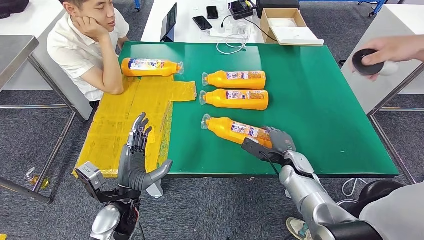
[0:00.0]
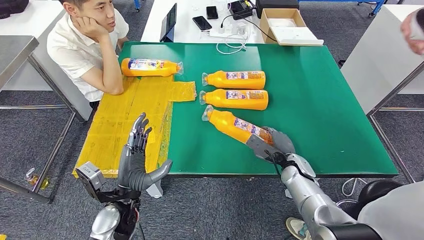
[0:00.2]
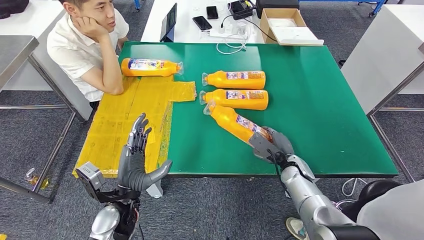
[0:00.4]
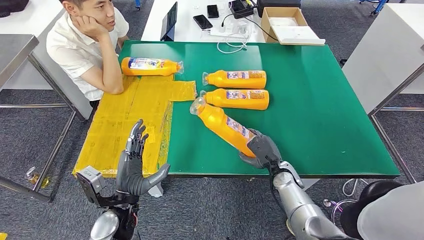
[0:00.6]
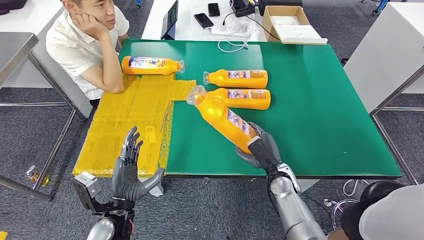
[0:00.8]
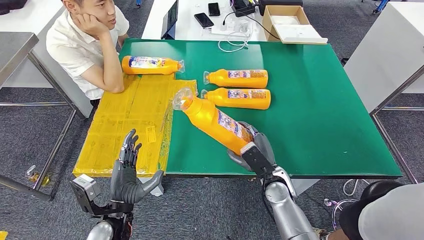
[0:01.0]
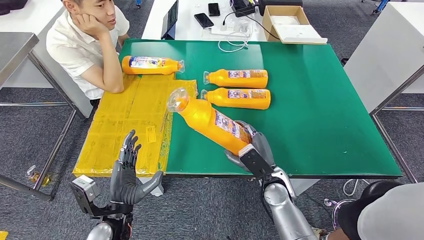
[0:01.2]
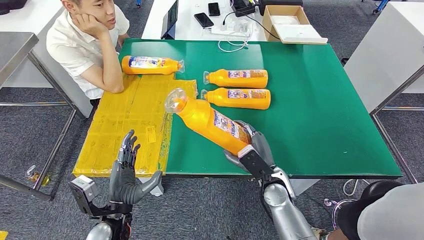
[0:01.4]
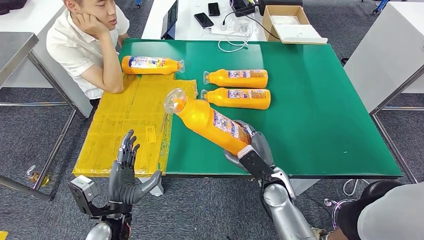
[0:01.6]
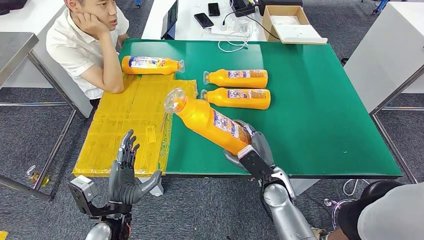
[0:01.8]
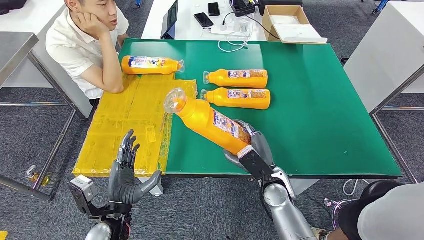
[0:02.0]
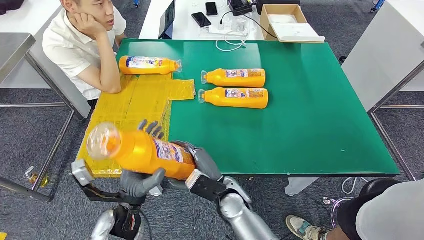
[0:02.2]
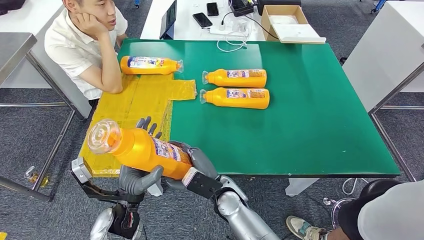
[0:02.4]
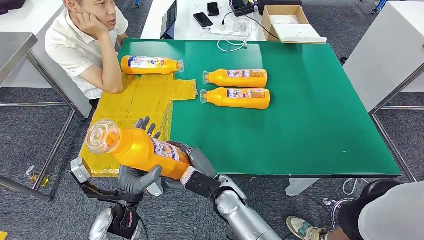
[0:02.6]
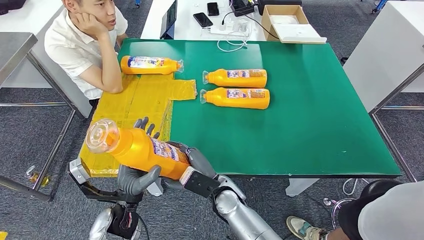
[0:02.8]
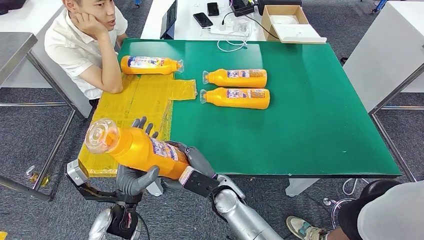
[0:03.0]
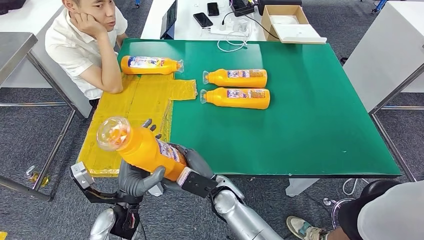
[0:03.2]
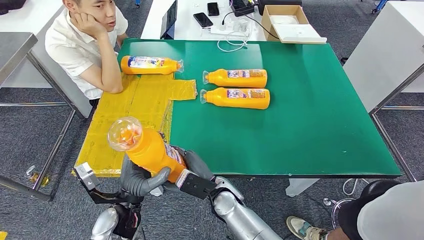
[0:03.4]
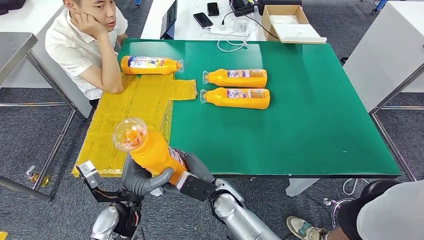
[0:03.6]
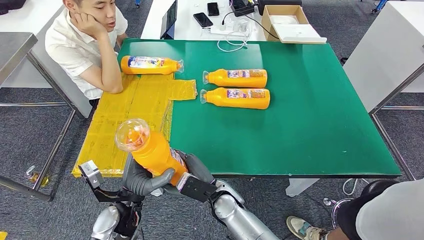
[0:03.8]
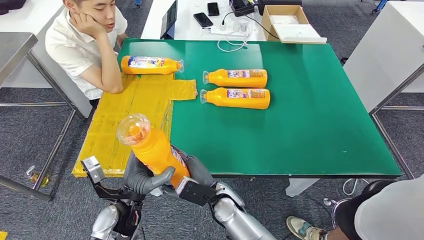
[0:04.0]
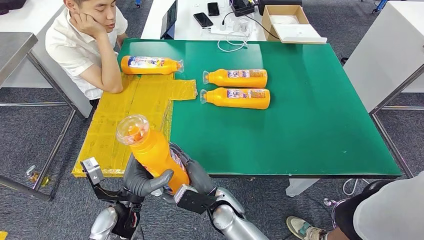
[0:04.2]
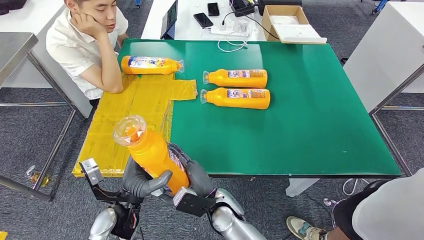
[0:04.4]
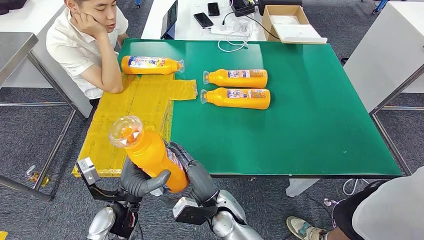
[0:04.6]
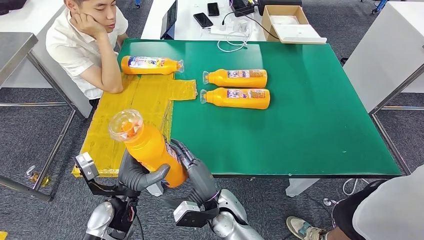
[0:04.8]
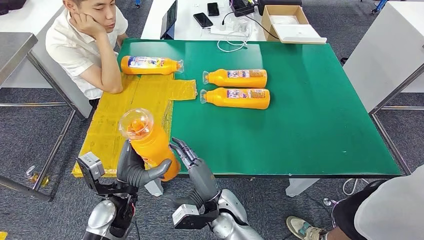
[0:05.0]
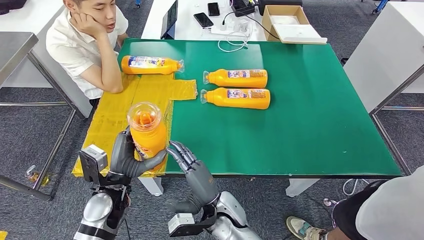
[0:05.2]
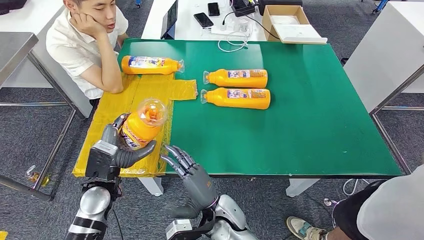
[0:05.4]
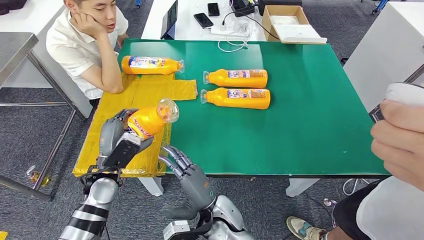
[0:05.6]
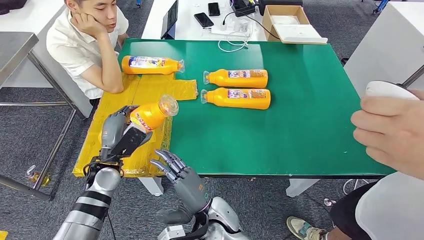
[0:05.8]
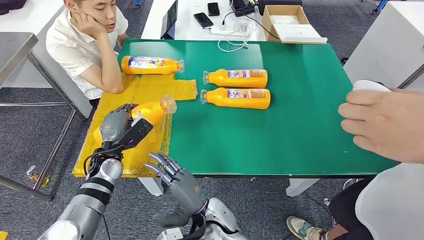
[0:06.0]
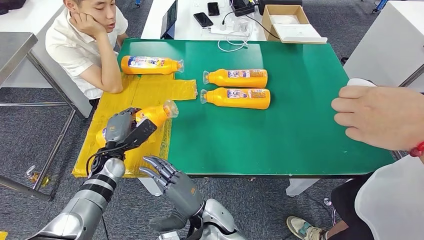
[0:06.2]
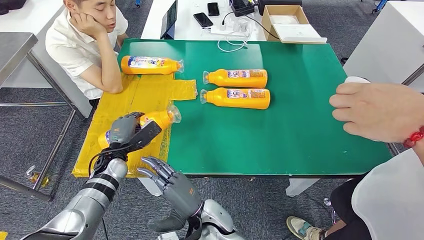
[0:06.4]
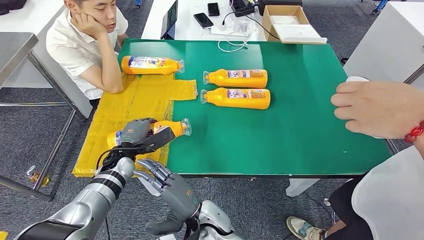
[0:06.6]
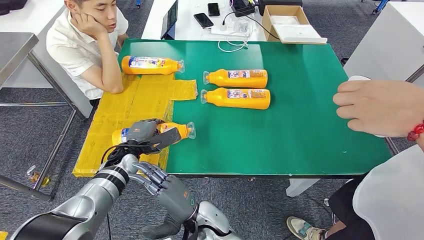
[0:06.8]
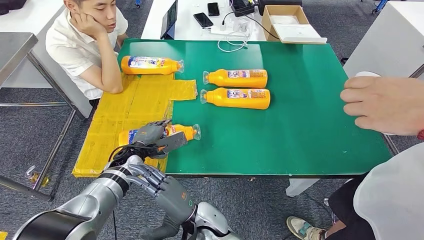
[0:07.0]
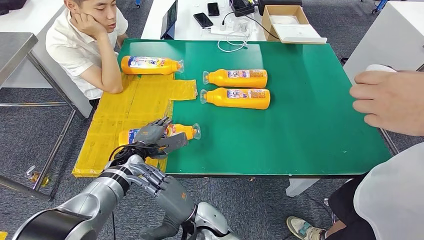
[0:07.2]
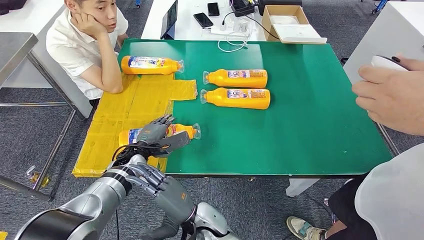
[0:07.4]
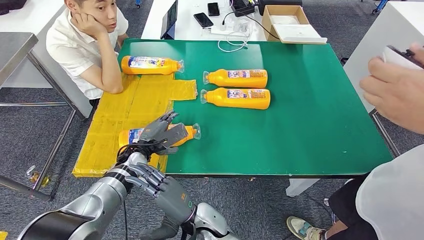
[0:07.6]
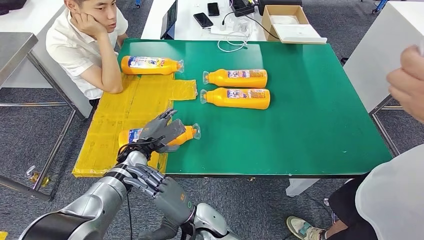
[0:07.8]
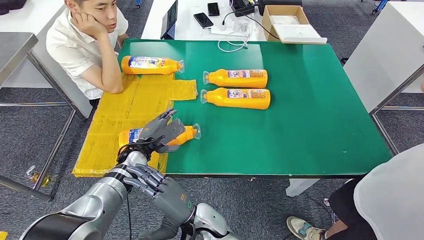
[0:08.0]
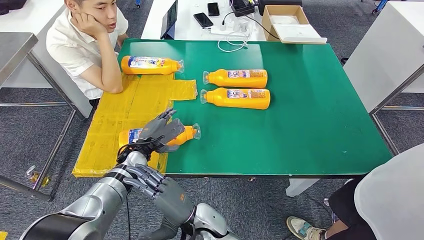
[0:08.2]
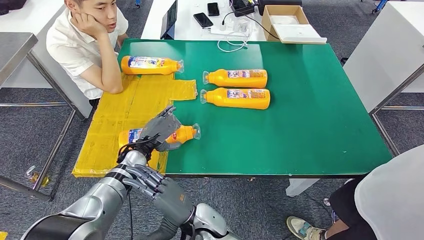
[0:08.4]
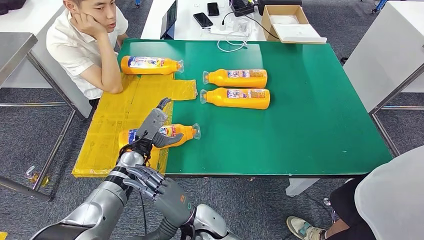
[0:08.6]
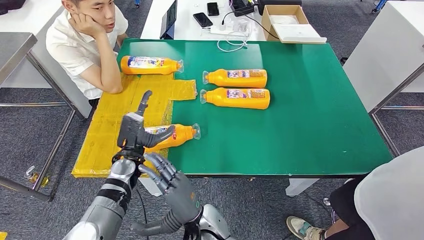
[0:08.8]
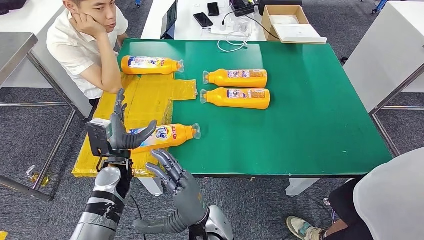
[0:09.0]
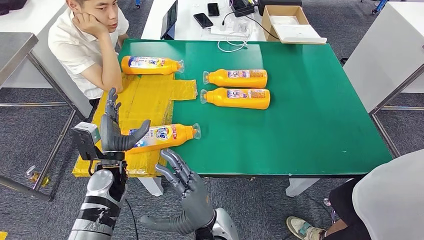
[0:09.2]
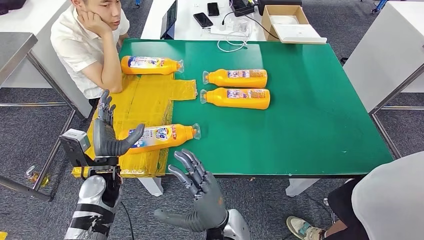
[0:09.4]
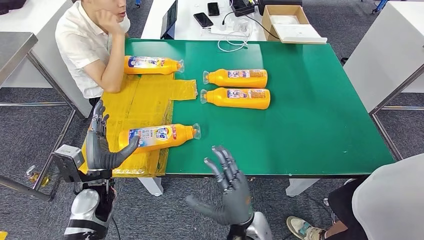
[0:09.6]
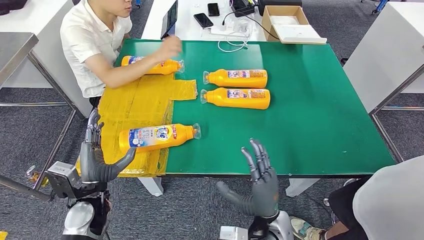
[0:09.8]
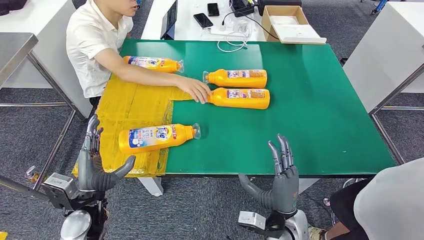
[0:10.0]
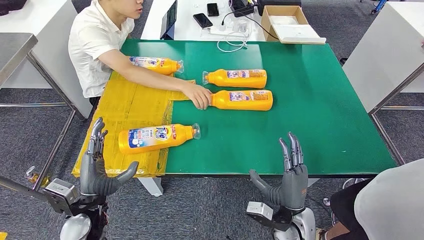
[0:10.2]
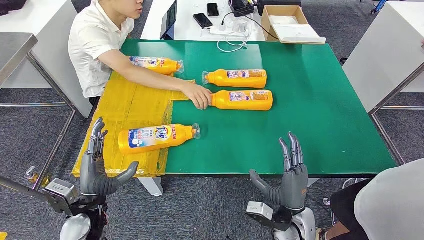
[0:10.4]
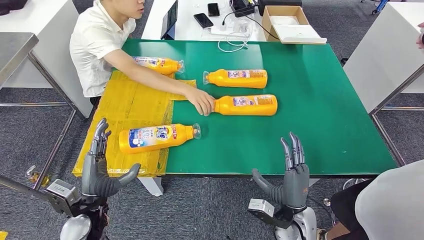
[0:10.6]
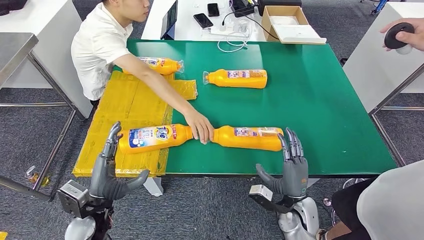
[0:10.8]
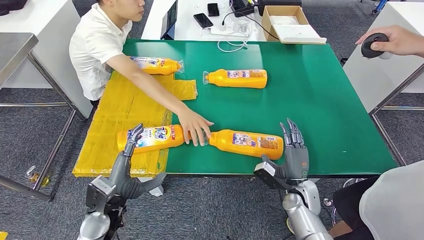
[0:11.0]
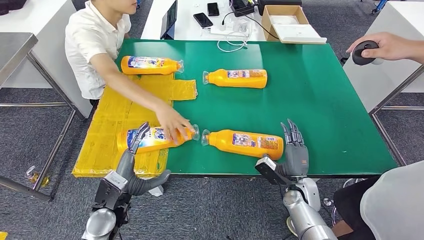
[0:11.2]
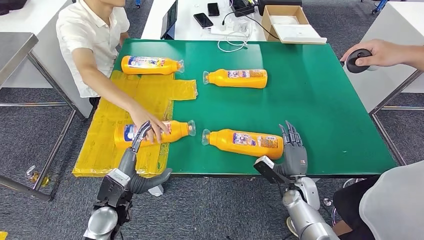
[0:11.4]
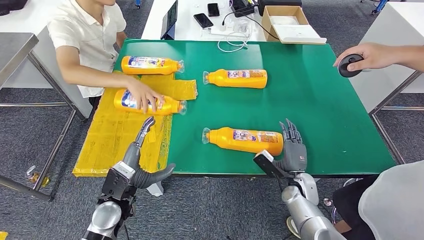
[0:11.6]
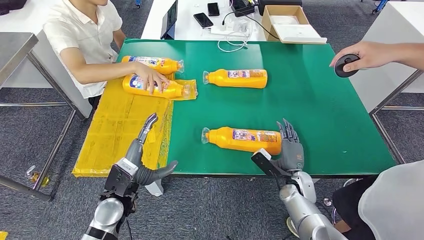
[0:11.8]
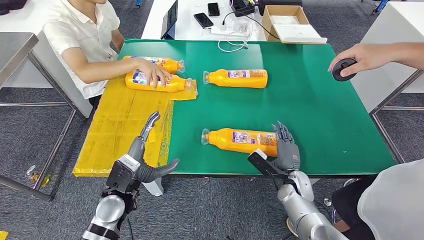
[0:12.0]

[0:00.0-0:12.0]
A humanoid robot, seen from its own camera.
Step, 0:01.4 to 0:08.8: Flip the bottle to face forward.
0:01.6 to 0:03.0: The right hand is displaced to the left by approximately 15 cm.
0:03.0 to 0:04.4: The hands stay close to where they were, moving slightly.
0:04.4 to 0:06.0: The left hand goes about 15 cm forward and to the left.
0:06.0 to 0:07.6: The left hand shifts by roughly 5 cm.
0:07.6 to 0:09.0: The left hand goes approximately 5 cm backward.

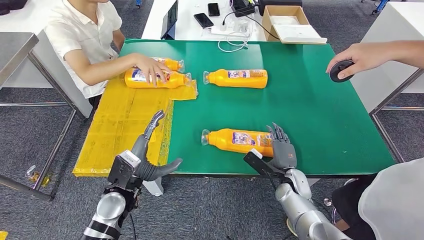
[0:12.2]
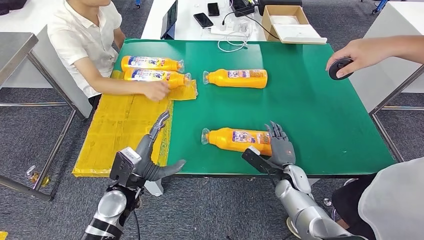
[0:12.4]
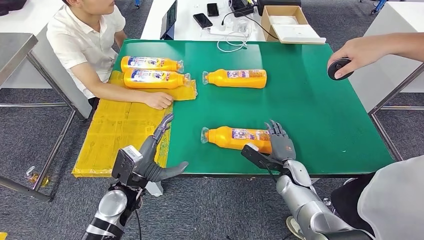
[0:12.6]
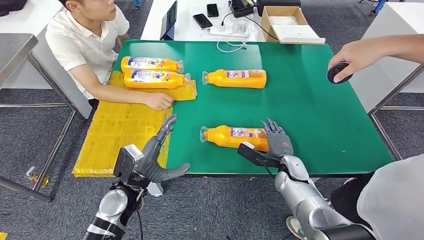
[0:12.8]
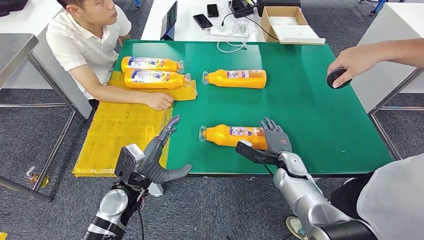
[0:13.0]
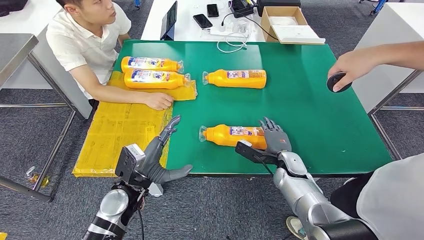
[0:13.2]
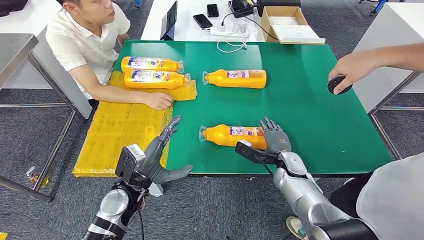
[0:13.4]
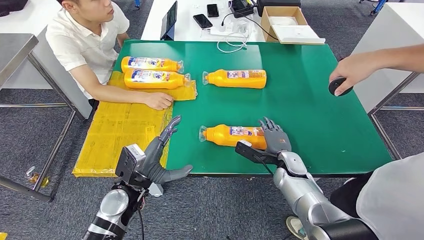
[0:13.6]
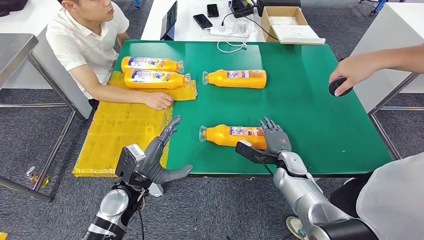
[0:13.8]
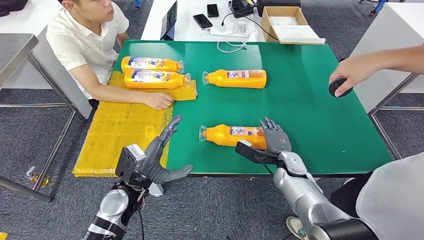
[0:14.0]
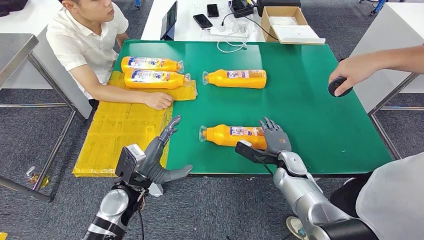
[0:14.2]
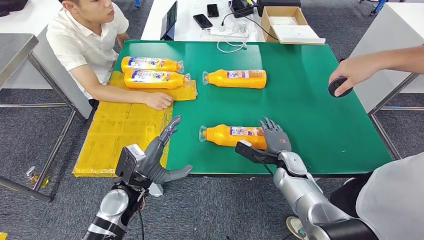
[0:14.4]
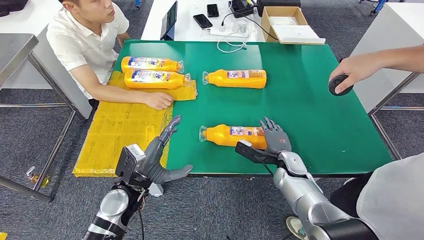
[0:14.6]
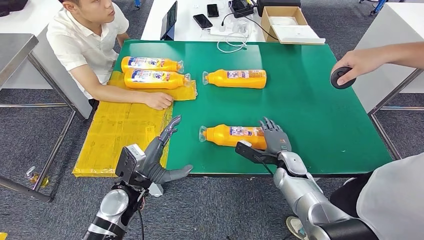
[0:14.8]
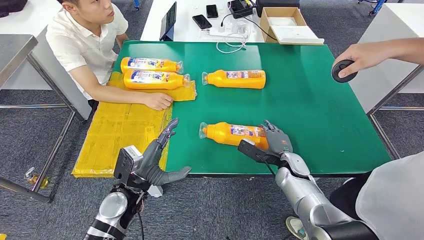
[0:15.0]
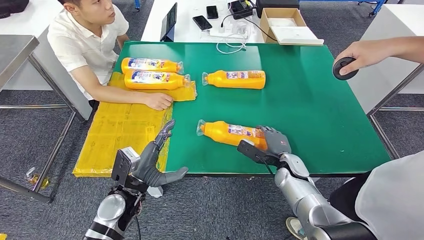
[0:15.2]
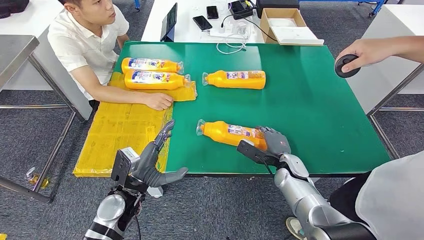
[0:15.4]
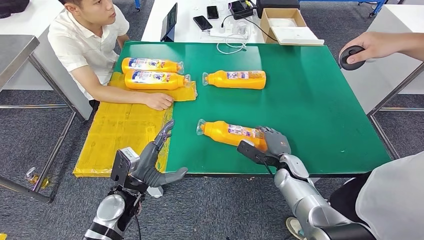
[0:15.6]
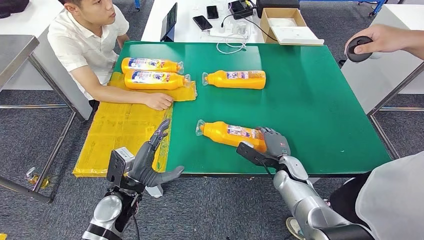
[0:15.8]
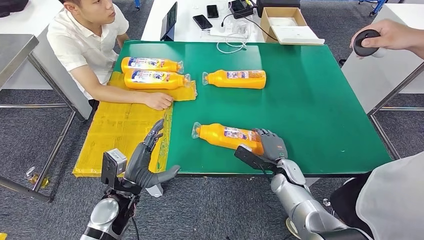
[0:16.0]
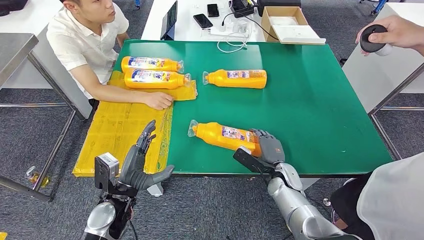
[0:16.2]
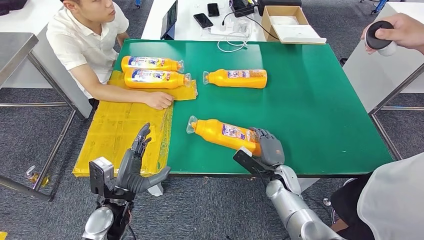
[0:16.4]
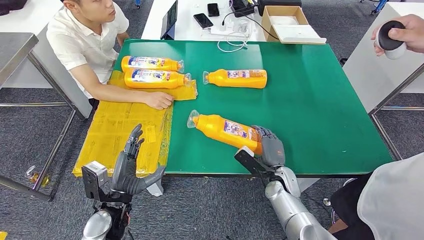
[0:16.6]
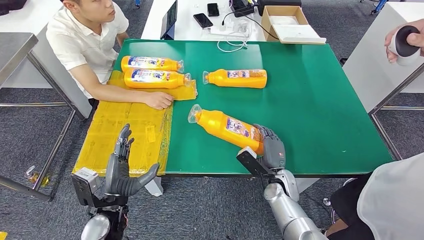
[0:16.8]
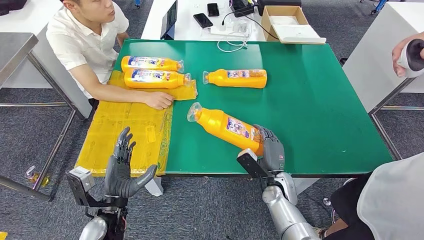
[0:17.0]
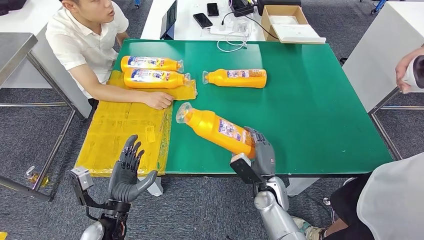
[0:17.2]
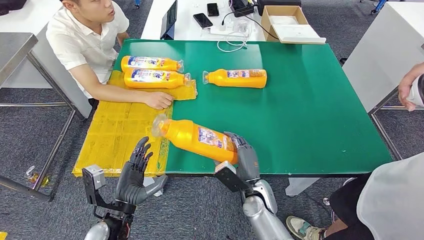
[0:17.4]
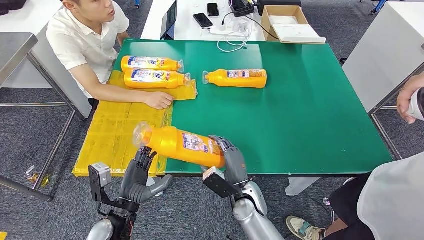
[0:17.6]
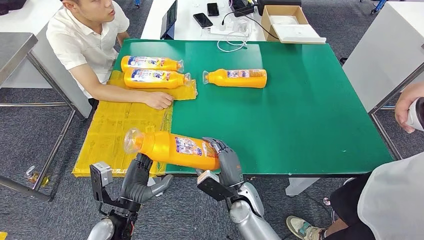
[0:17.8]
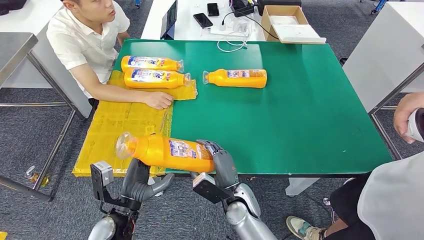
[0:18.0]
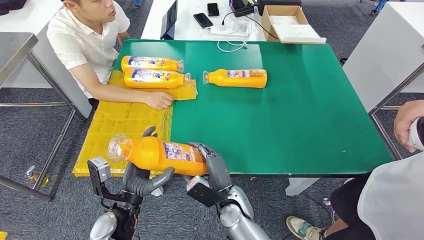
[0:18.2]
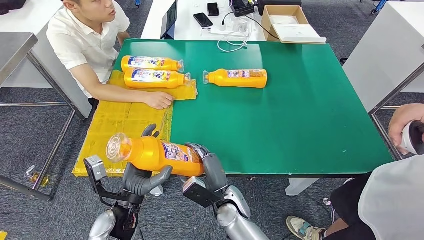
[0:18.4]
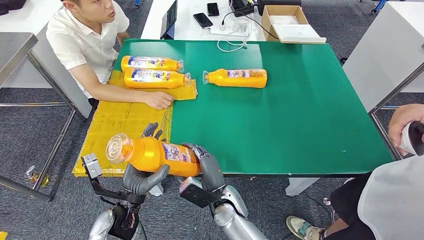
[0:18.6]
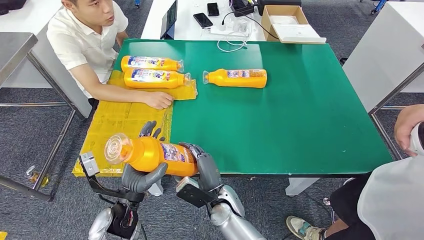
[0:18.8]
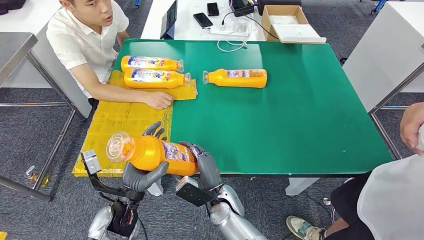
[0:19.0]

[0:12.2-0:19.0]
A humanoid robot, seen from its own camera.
Step, 0:12.2 to 0:16.2: Pick up the bottle from the table.
0:12.2 to 0:13.6: The right hand shifts by approximately 5 cm.
0:13.6 to 0:15.0: The hands make only small movements.
0:15.0 to 0:16.2: The hands make only small movements.
0:16.2 to 0:17.6: The right hand moves to the left and backward, some 15 cm.
0:17.6 to 0:19.0: The right hand travels to the left by some 5 cm.
